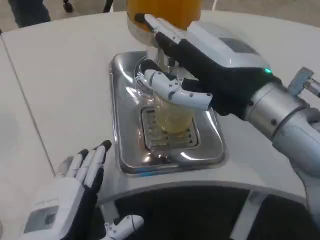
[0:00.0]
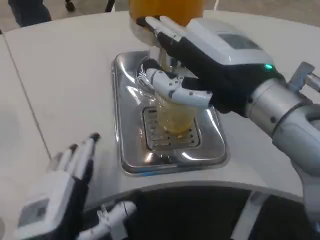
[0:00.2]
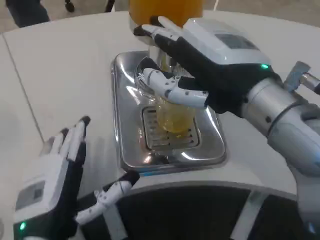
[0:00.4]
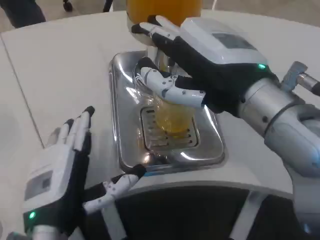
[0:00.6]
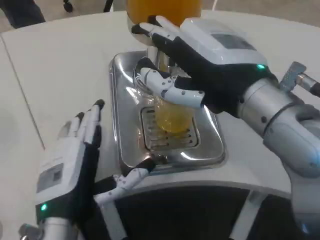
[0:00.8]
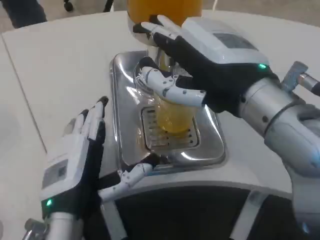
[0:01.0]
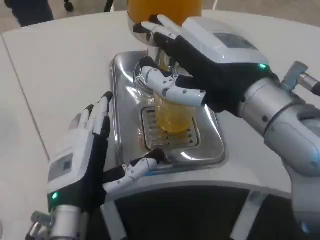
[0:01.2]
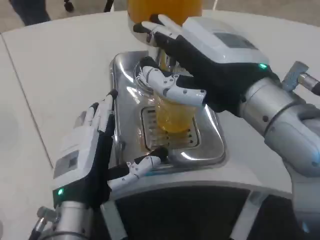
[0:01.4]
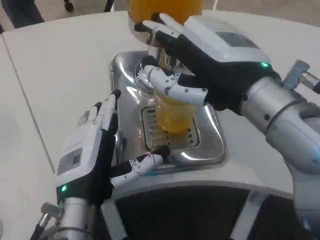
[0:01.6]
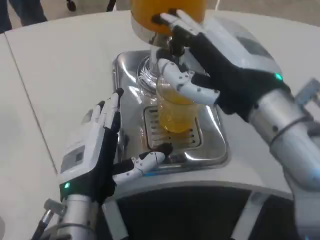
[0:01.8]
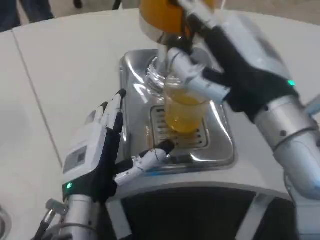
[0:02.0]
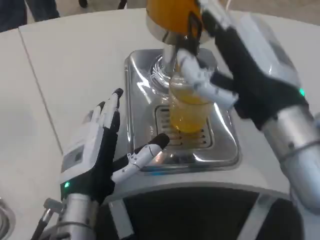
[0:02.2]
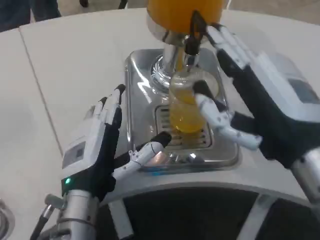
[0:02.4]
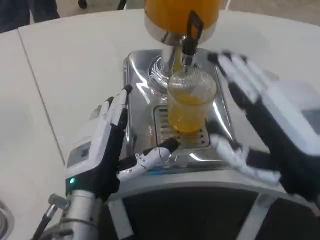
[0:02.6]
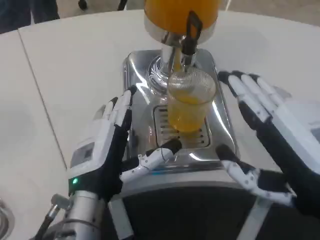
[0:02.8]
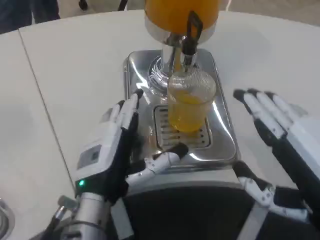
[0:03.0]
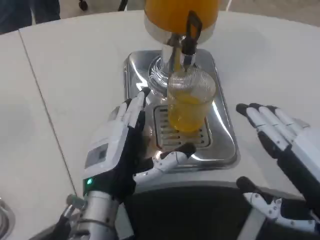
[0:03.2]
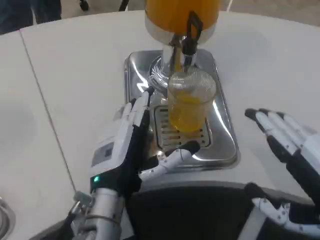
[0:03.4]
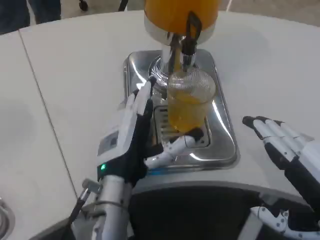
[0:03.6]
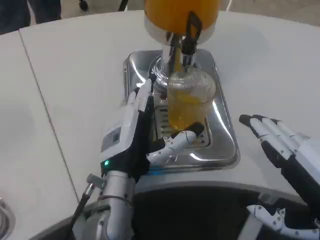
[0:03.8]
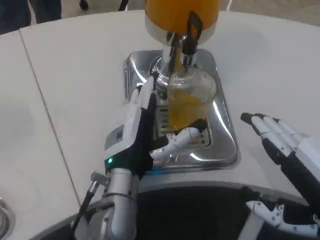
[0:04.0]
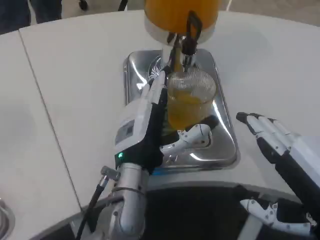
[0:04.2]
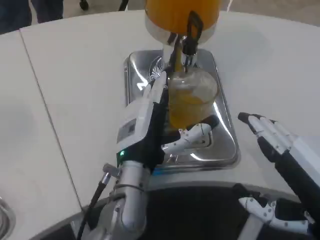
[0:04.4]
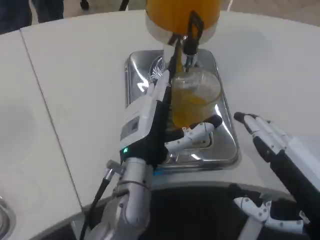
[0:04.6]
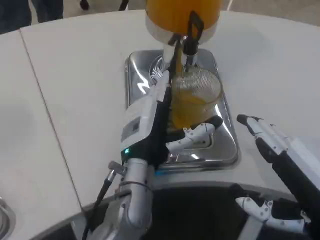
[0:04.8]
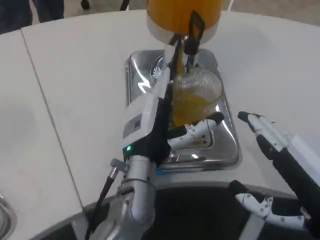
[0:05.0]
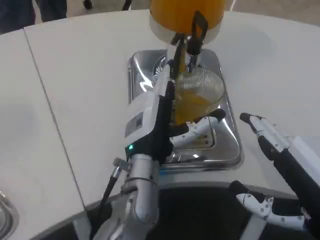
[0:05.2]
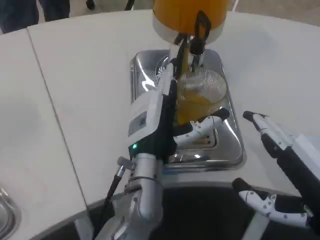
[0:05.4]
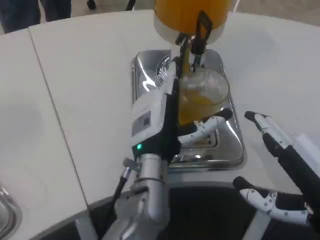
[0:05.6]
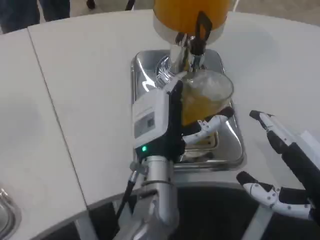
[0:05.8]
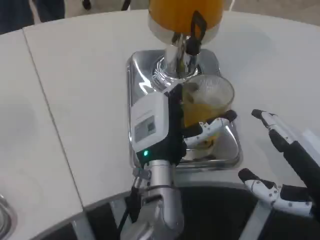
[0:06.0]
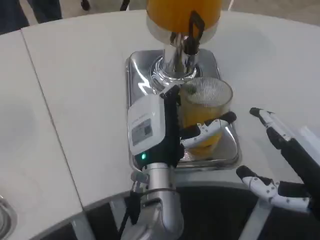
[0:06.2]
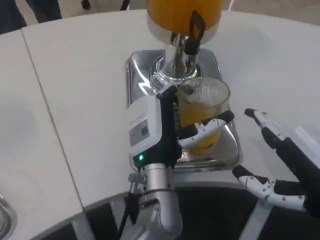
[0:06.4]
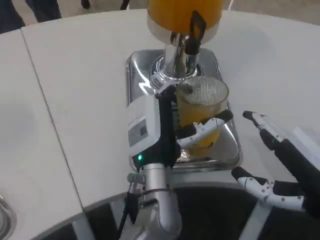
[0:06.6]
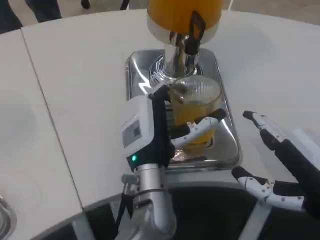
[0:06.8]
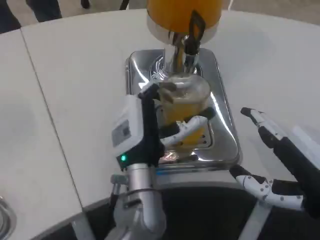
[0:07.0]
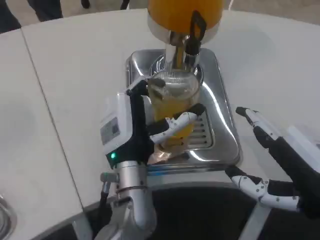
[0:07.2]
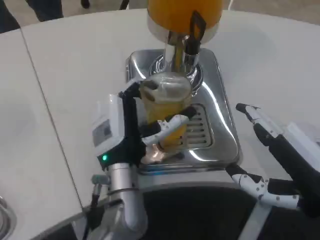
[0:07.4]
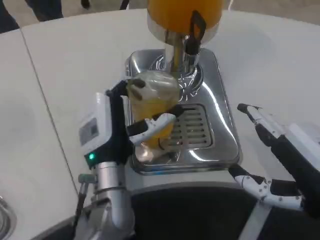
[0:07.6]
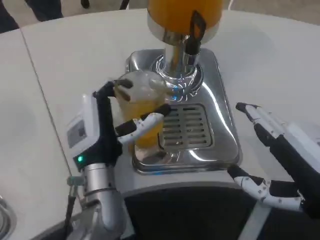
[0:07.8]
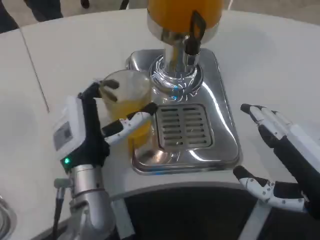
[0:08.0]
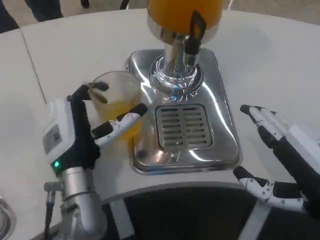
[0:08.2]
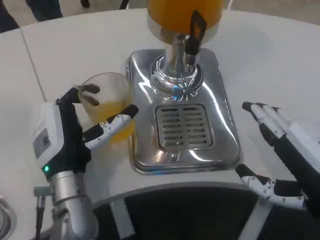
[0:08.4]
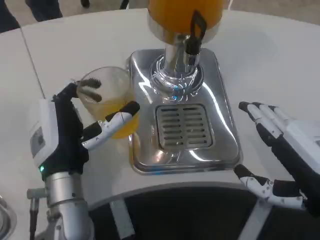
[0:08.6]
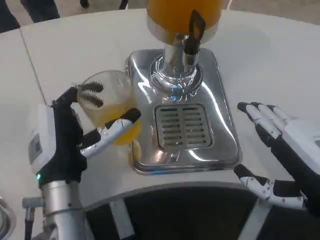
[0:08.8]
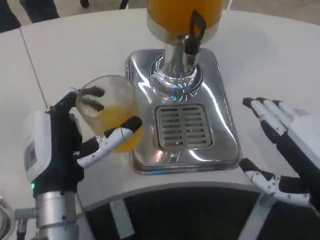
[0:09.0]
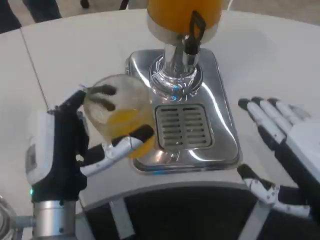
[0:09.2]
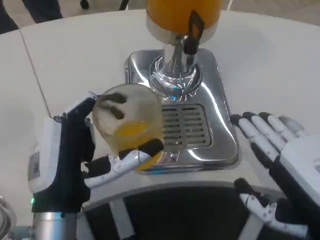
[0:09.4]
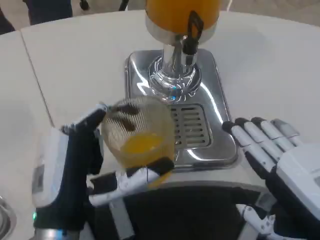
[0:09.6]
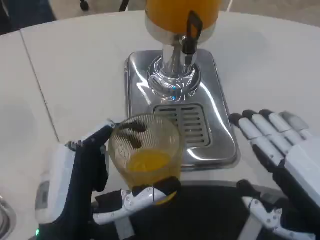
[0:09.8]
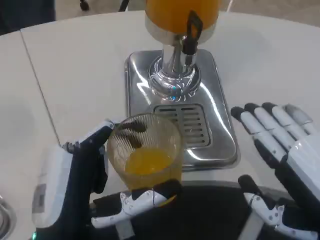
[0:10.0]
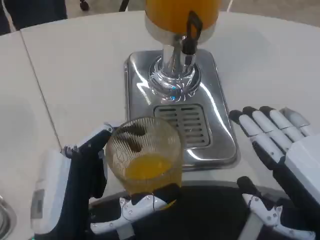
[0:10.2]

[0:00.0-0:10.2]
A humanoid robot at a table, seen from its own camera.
Task of the whole recording: Grasp the cup under the faucet to collect the drink, then remove the cup.
0:00.0 to 0:01.4: The left hand is displaced forward by about 10 cm.
0:01.4 to 0:03.0: The right hand goes roughly 15 cm downward, backward and to the right.
0:03.0 to 0:04.4: The left hand is displaced forward and to the right by roughly 10 cm.
0:04.4 to 0:05.8: The left hand ends up some 5 cm from where it was.
0:07.2 to 0:08.8: The left hand goes roughly 10 cm to the left.
0:08.8 to 0:10.2: The left hand moves backward, about 10 cm.
